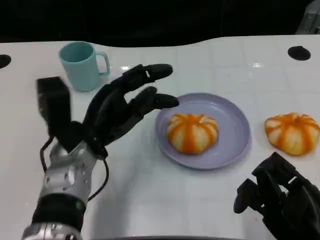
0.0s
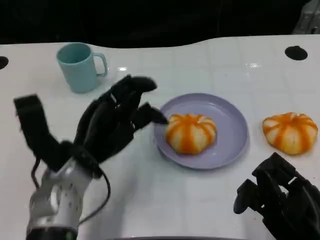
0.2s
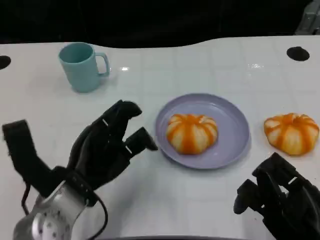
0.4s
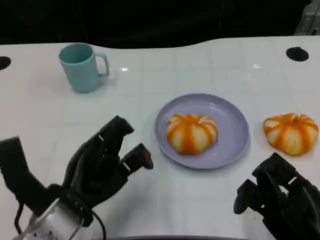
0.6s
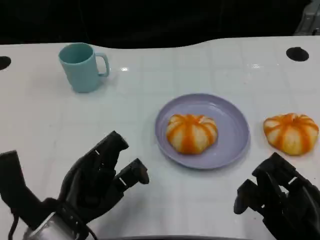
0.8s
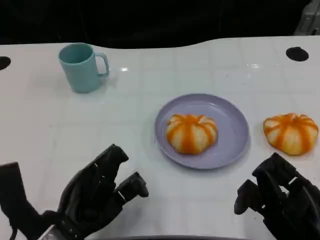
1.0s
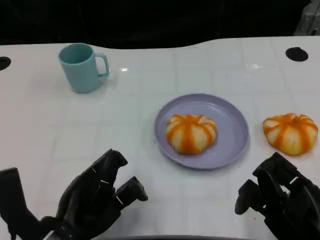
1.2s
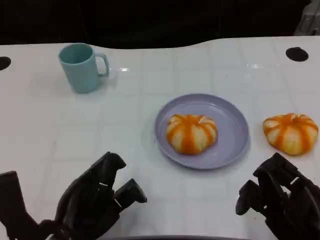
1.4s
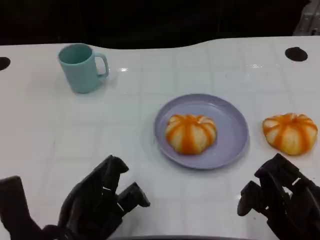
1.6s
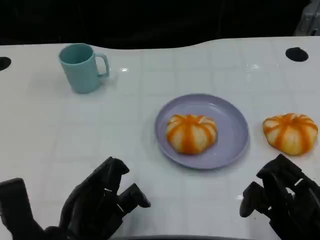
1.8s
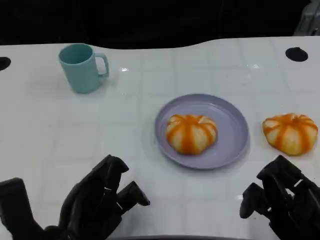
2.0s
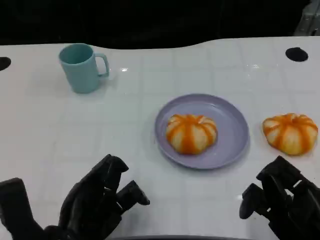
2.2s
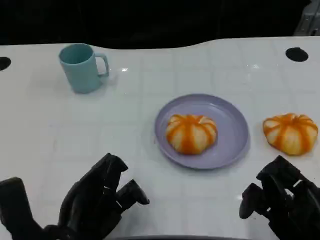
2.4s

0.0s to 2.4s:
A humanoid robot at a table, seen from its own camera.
Task of the whole recording: Grasp the bread from the table and place it into the plate.
0.0s to 1.2s: The left hand shifts some 10 cm backward.
1.2s to 2.4s: The hands make only small movements.

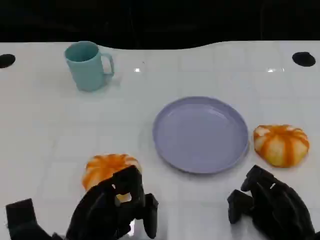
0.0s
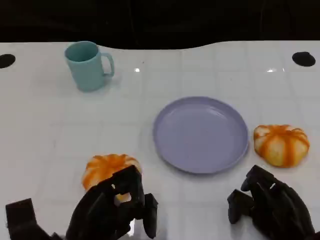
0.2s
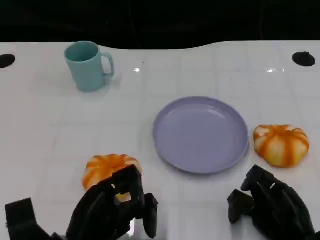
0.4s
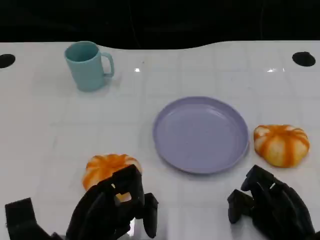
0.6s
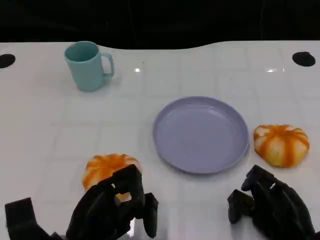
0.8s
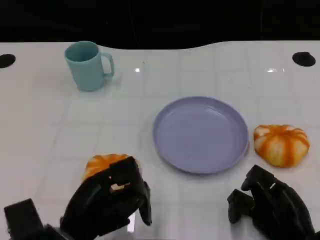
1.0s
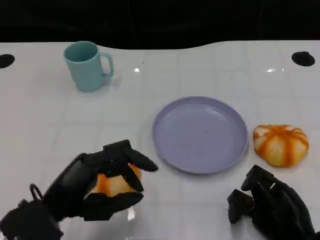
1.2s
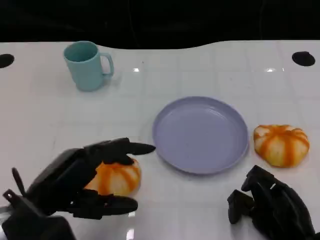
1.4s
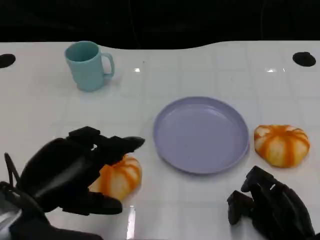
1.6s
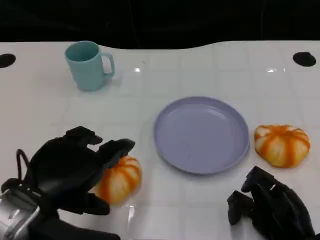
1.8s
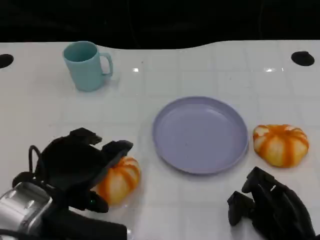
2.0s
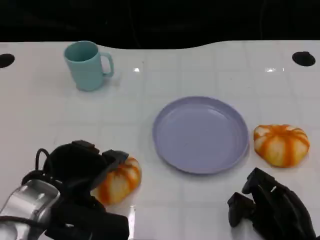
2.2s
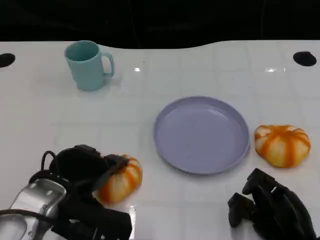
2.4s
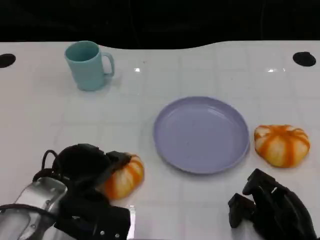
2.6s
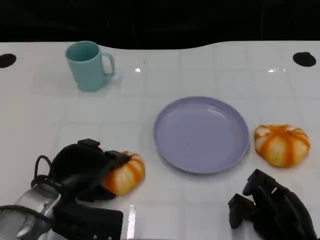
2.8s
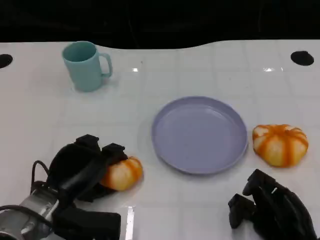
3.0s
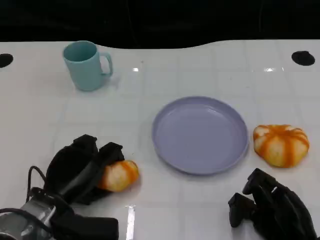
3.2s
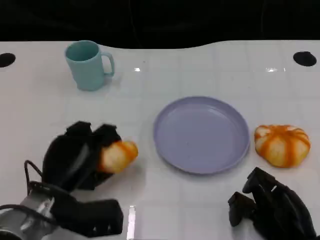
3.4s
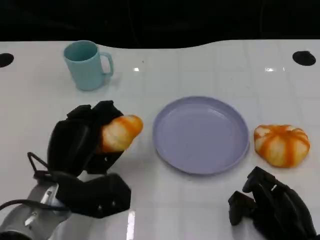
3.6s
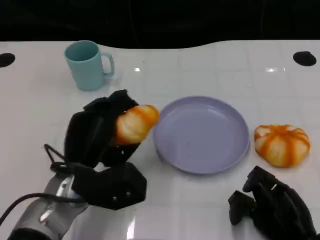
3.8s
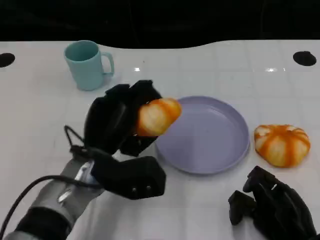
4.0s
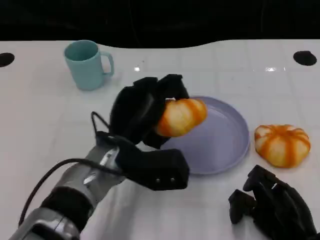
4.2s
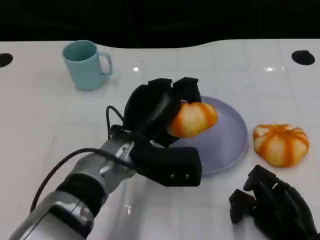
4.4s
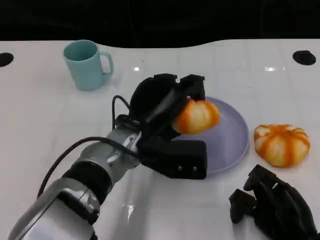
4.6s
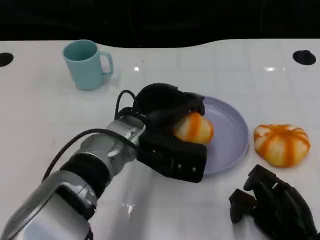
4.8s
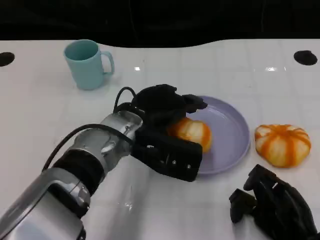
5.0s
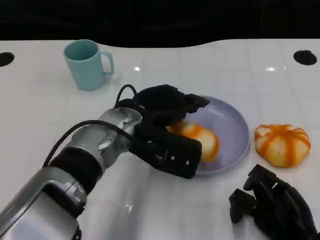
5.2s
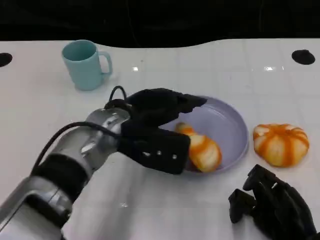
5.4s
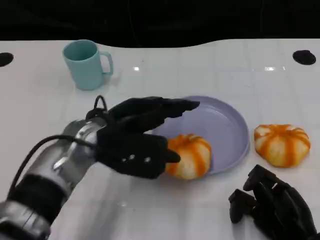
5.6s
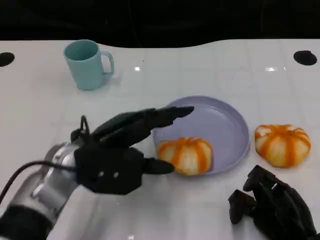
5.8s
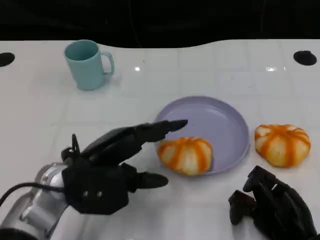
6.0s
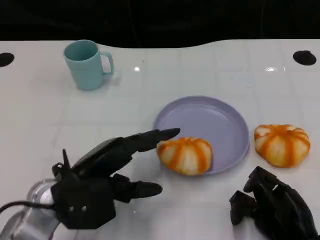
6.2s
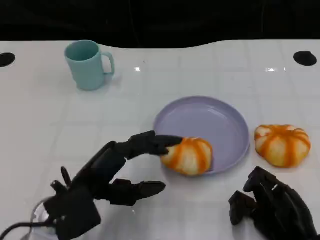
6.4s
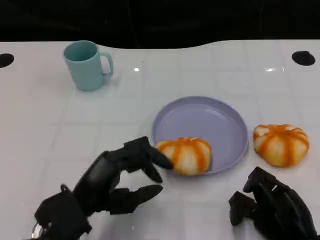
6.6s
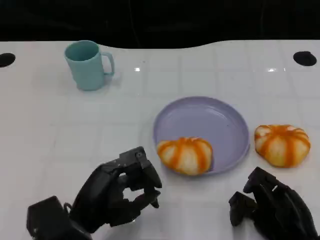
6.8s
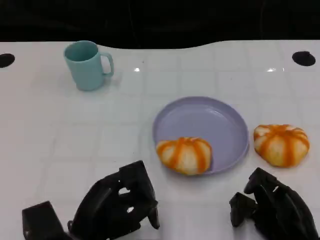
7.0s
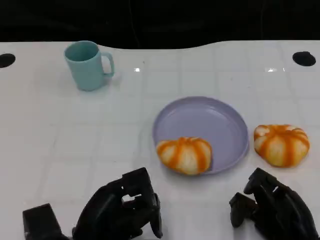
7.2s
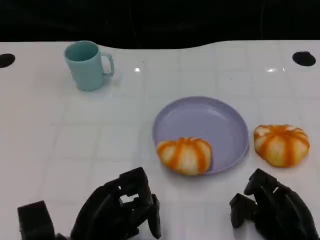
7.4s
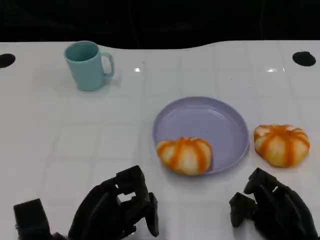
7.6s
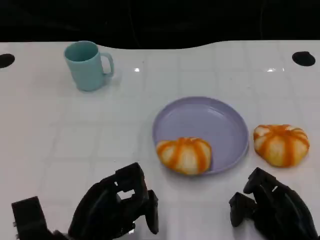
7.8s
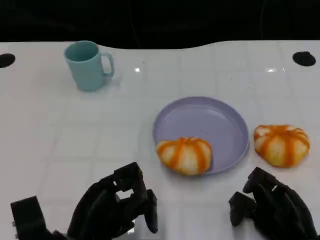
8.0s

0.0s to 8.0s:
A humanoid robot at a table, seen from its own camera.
Task of the whole recording: Grasp the bread from the table and place it into the plate.
0.0s to 1.6s: The left hand is displaced upward by approximately 10 cm.
1.6s to 3.2s: The left hand shifts some 15 cm downward and forward.
3.2s to 4.8s: The left hand is displaced to the right, upward and forward by roughly 15 cm.
4.8s to 6.4s: The left hand moves to the left and backward, roughly 15 cm.
6.4s to 8.0s: The left hand shifts by some 5 cm.

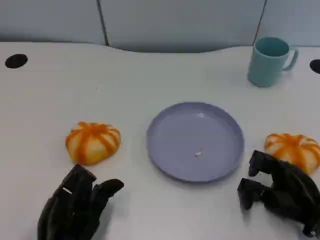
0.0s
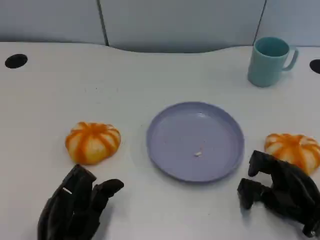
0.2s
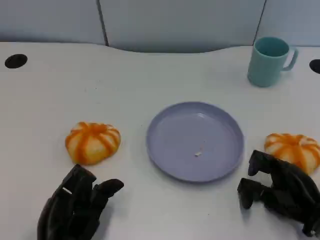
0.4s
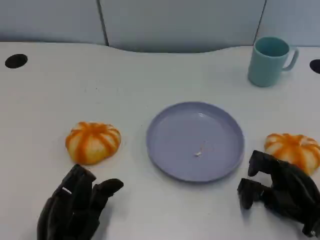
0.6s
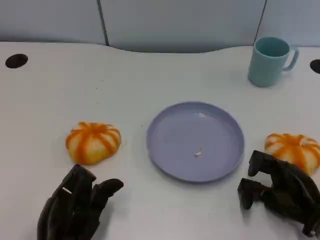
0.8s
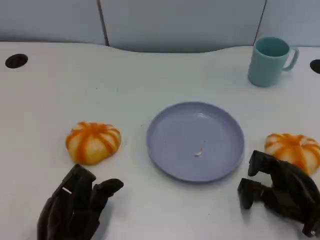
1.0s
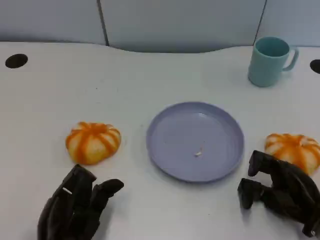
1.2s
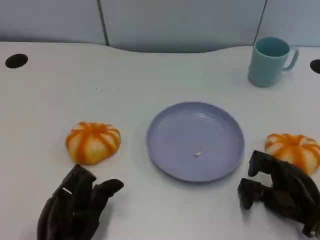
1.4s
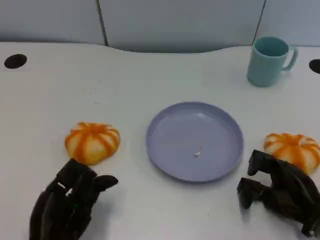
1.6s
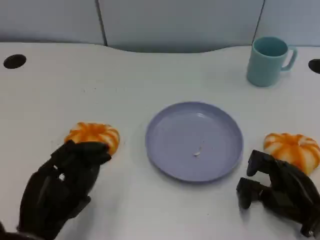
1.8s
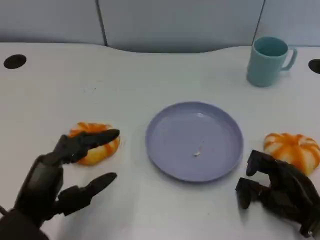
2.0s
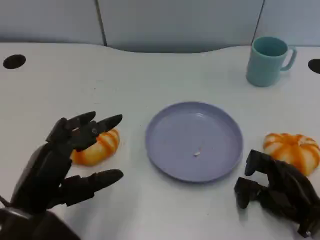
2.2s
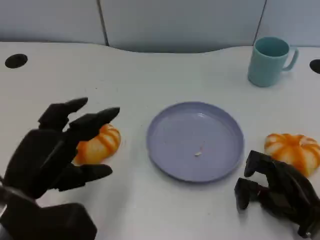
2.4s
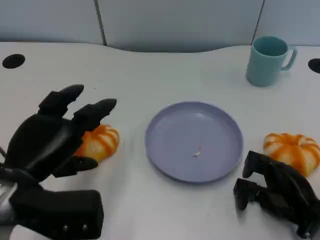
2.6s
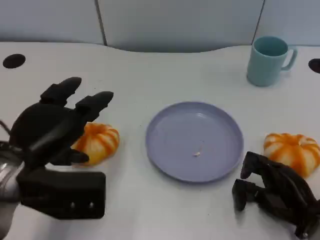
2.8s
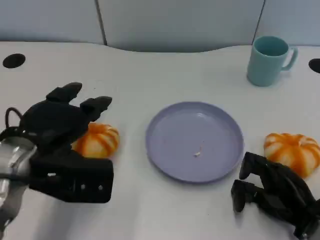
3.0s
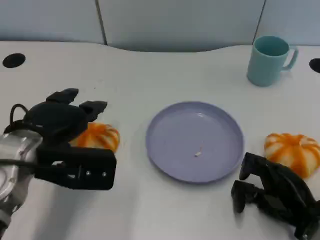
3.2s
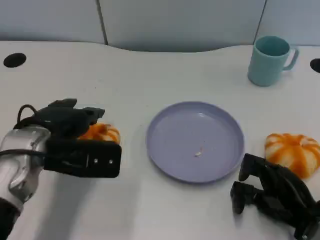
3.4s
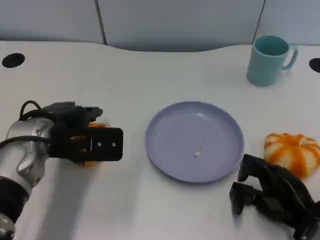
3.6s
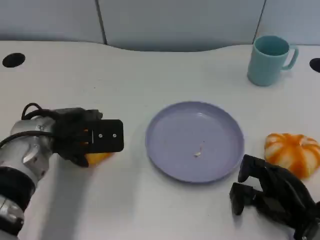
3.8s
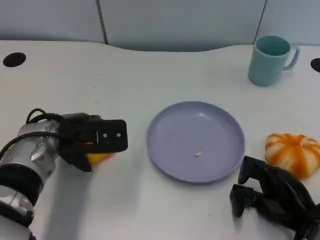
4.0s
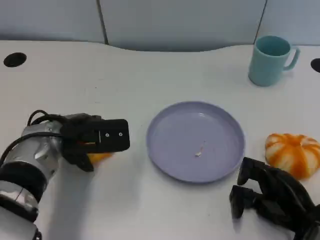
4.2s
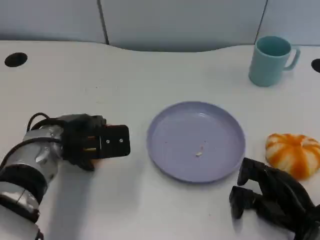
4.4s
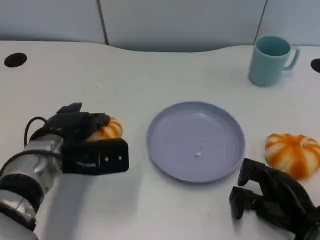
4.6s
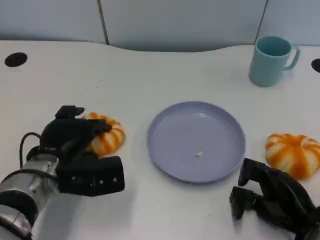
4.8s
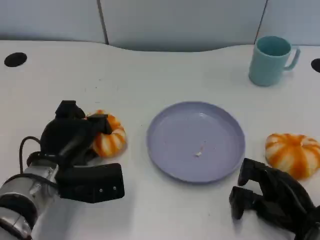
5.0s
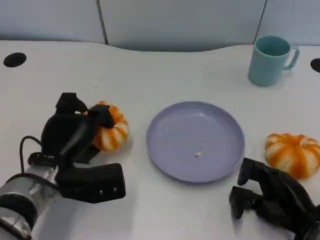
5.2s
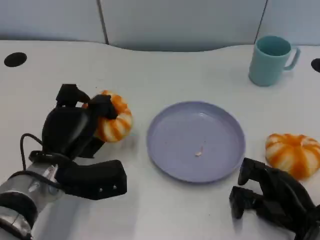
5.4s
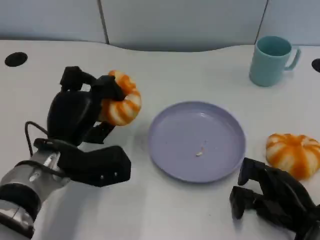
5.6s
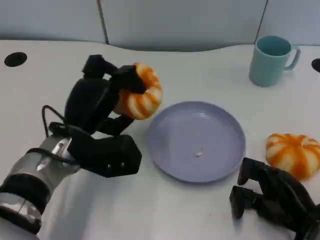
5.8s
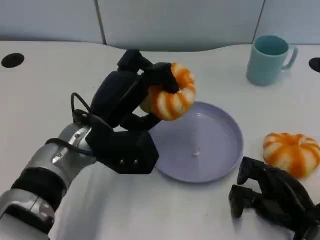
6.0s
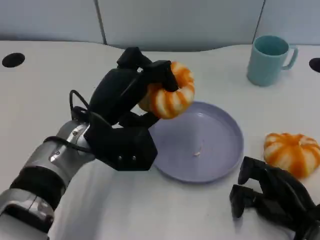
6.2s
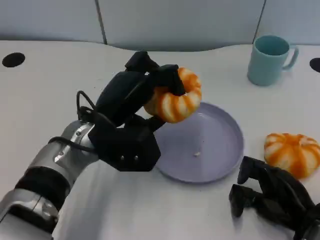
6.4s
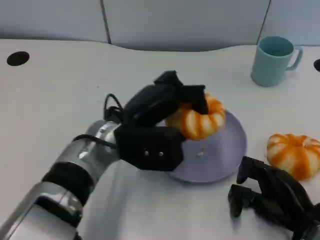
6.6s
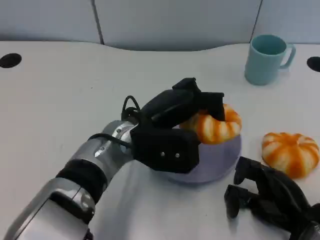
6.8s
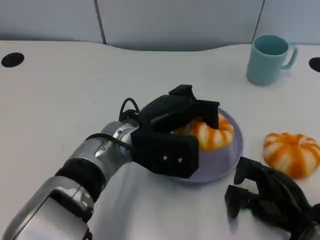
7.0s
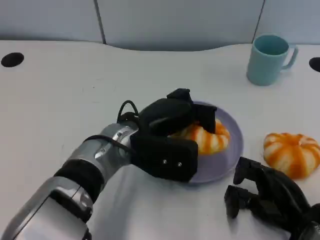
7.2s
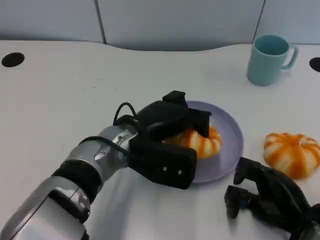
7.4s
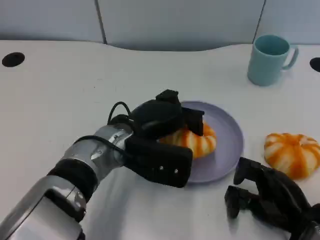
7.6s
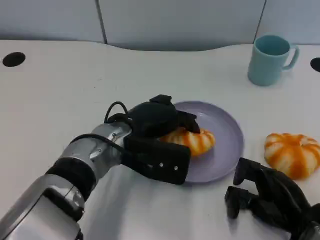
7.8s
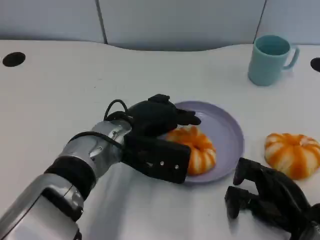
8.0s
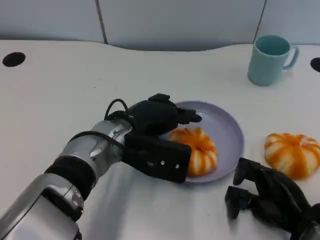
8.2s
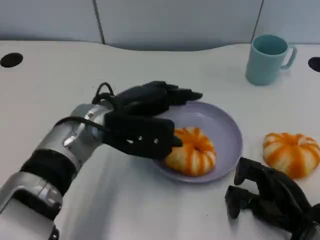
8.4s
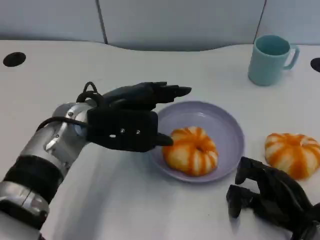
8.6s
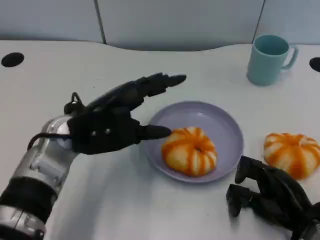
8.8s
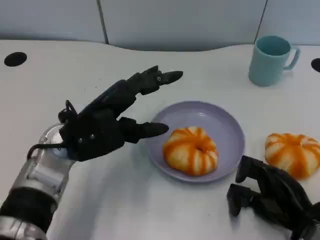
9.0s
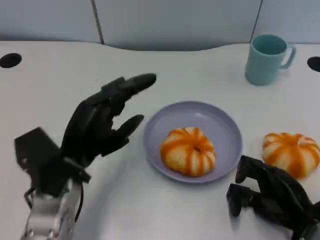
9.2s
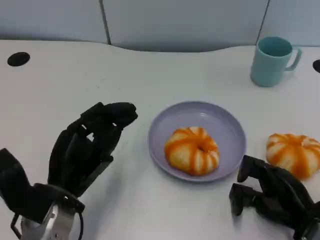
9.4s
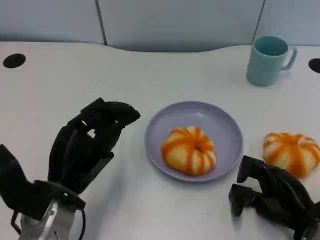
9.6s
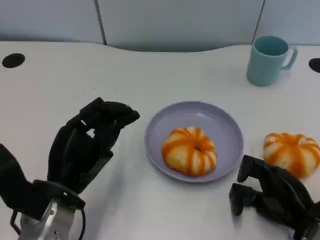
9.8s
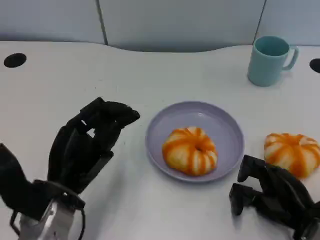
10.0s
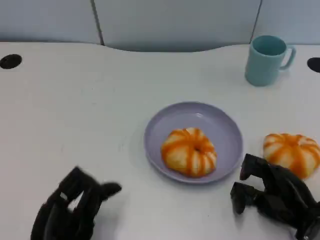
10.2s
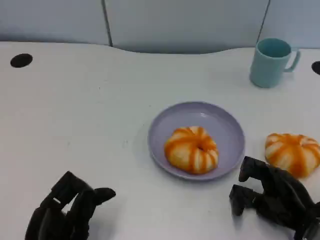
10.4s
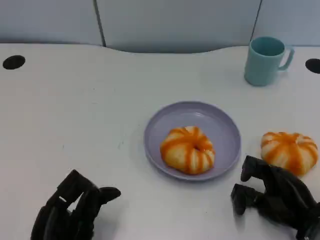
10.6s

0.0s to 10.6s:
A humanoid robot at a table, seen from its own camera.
Task of the whole recording: Grasp the bread from the table and place it into the plate.
0.0s to 1.6s: The hands move only a little.
1.6s to 3.0s: The left hand is displaced upward and forward by approximately 15 cm.
3.0s to 4.6s: The left hand is displaced downward by about 10 cm.
4.6s to 6.0s: The left hand is displaced to the right and upward by roughly 10 cm.
7.6s to 9.0s: The left hand moves to the left, approximately 10 cm.
9.0s to 10.6s: The left hand shifts some 20 cm backward and downward.

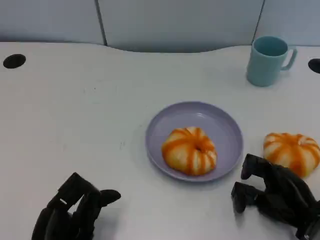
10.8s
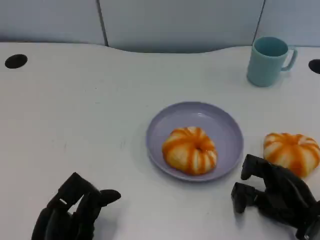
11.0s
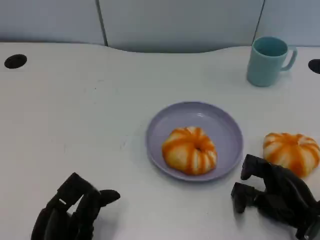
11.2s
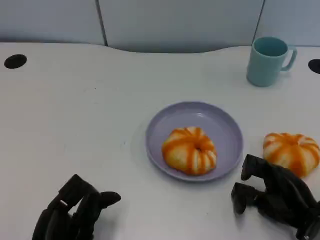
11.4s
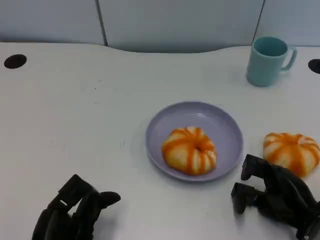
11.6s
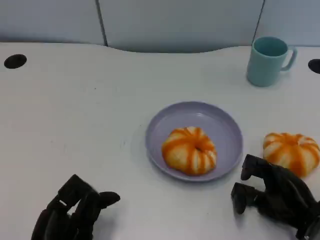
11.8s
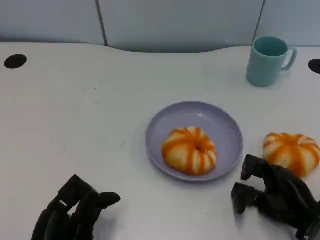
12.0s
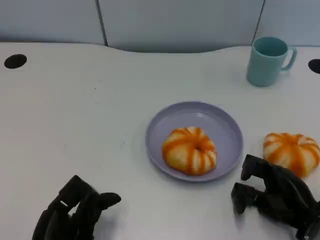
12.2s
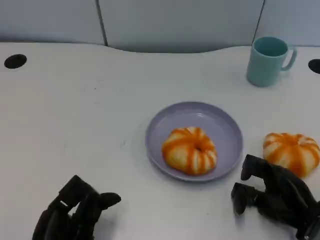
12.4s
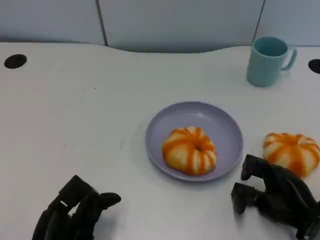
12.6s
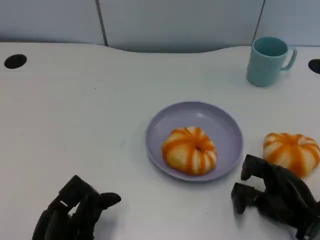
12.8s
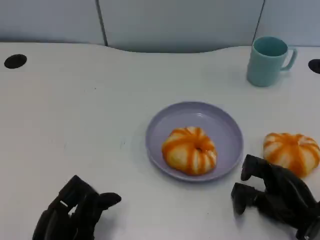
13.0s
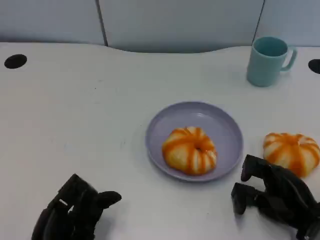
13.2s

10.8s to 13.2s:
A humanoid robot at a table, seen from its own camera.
Task of the whole recording: Grasp the bread from the table and place it into the plate.
10.8s to 12.0s: Both hands stay about where they are.
